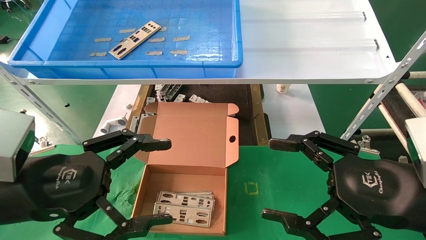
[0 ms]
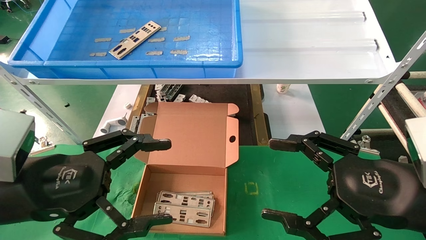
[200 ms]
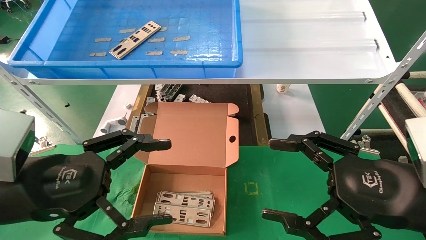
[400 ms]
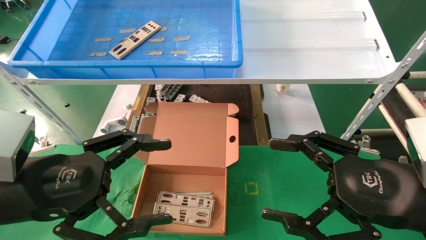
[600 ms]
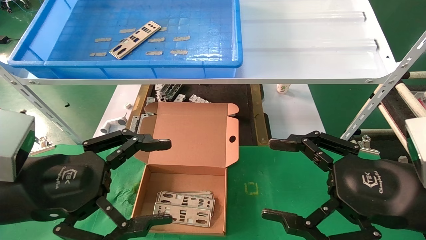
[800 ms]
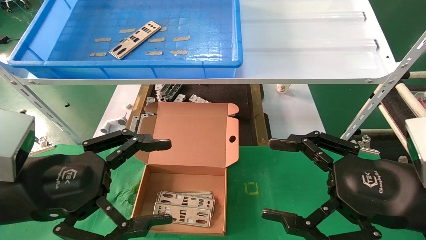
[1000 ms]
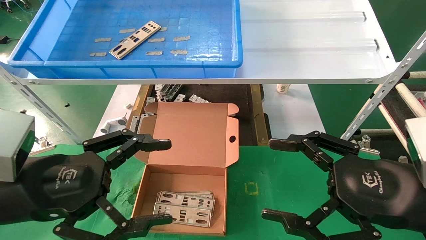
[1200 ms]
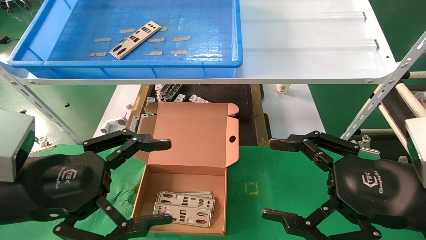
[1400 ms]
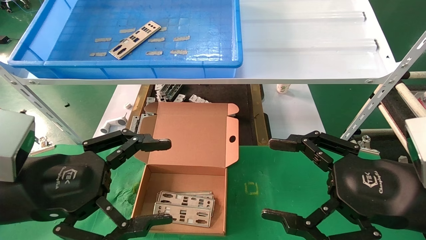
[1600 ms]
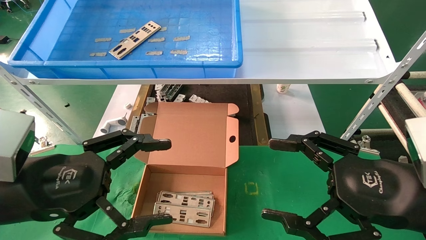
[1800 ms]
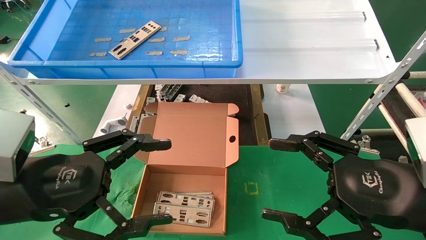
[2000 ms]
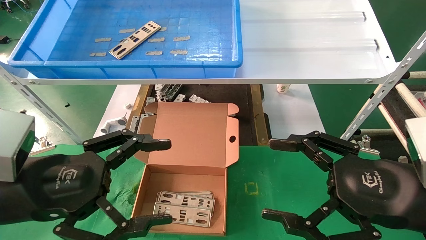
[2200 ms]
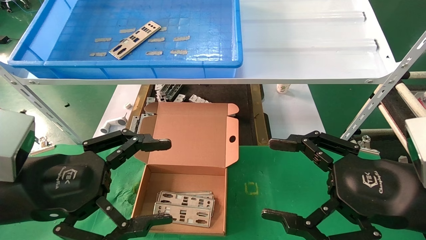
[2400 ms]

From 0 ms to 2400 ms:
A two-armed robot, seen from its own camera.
Task of the whole recording: pick up the parts on the tray and put them in the cardboard box.
From 0 ms to 2400 ms: Both grippers stay about where they are.
